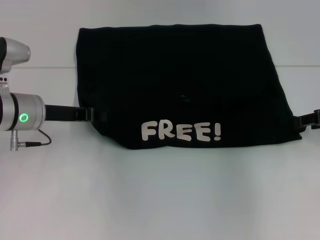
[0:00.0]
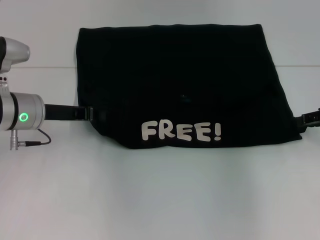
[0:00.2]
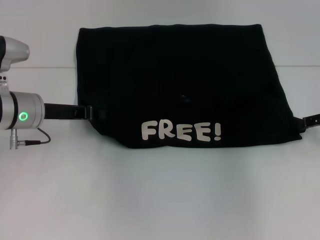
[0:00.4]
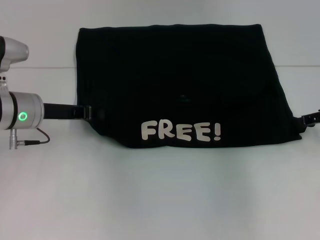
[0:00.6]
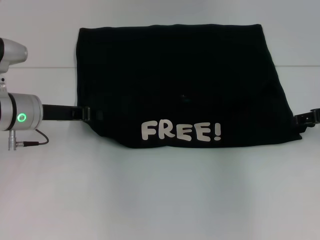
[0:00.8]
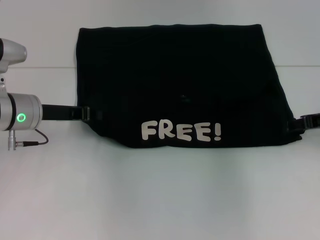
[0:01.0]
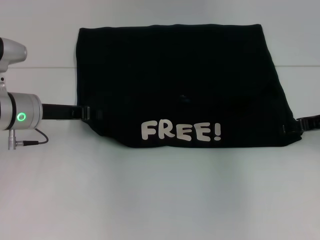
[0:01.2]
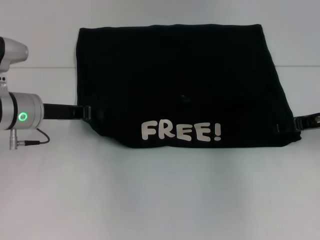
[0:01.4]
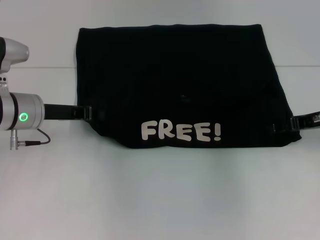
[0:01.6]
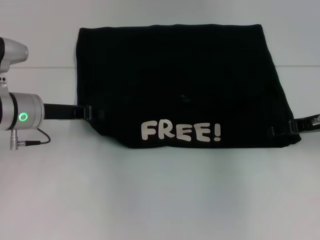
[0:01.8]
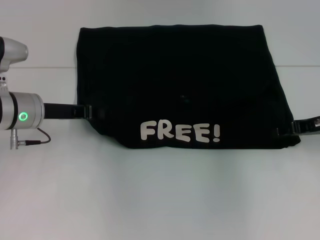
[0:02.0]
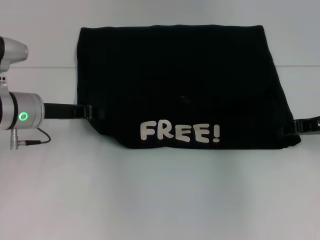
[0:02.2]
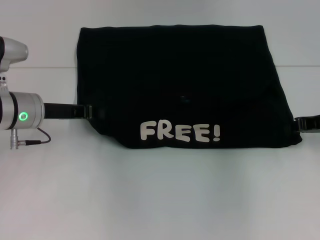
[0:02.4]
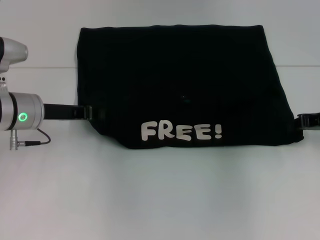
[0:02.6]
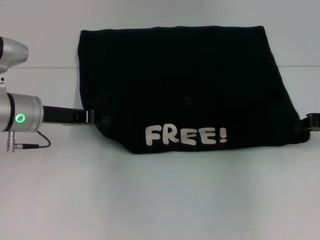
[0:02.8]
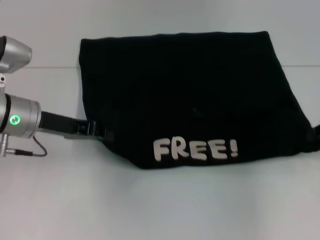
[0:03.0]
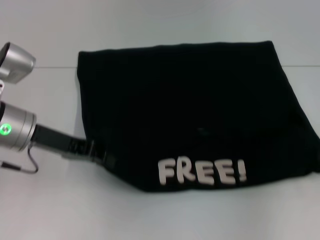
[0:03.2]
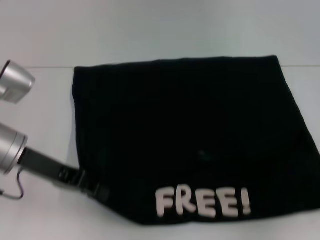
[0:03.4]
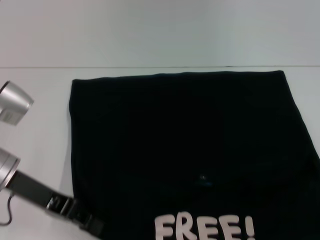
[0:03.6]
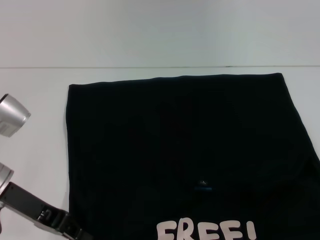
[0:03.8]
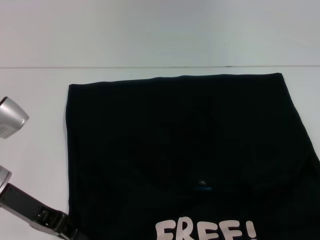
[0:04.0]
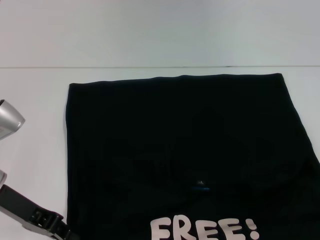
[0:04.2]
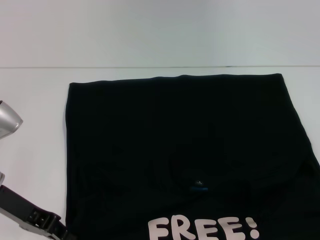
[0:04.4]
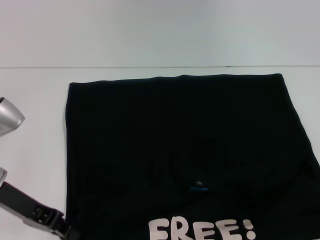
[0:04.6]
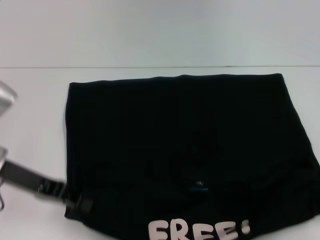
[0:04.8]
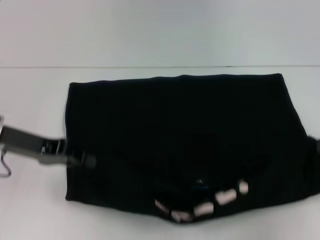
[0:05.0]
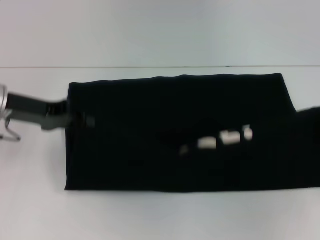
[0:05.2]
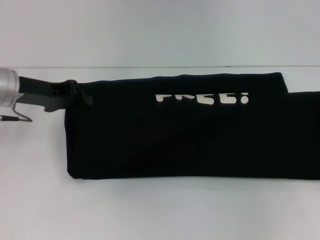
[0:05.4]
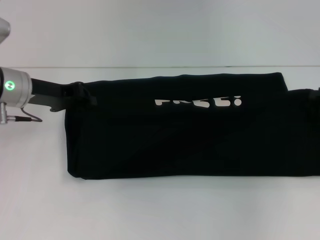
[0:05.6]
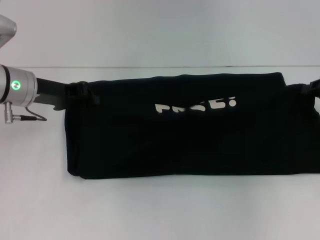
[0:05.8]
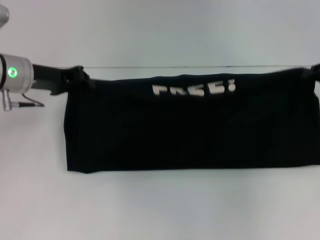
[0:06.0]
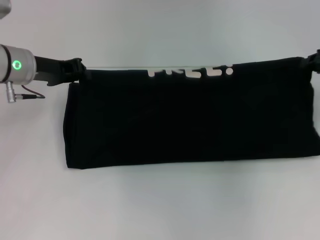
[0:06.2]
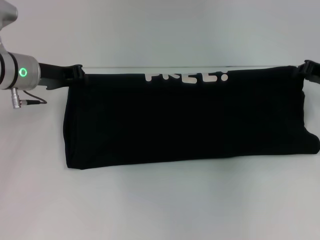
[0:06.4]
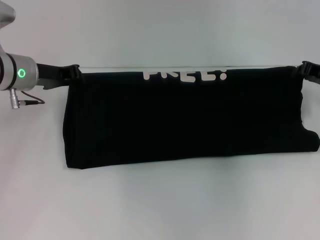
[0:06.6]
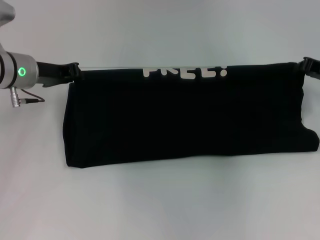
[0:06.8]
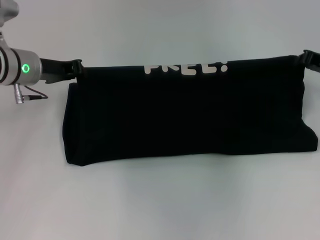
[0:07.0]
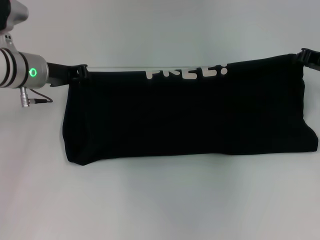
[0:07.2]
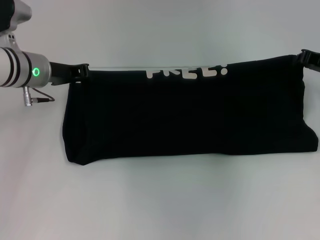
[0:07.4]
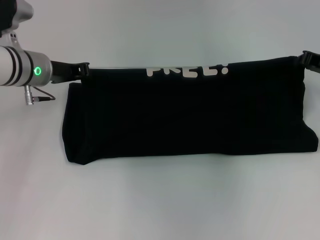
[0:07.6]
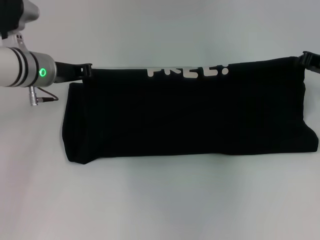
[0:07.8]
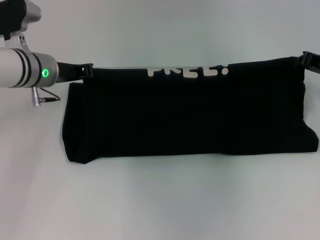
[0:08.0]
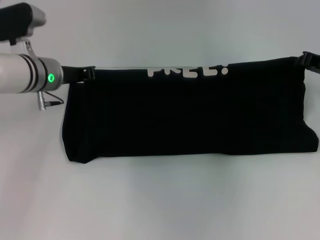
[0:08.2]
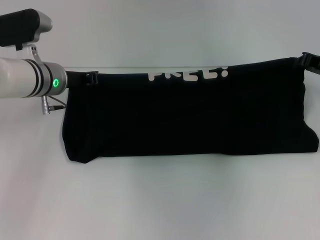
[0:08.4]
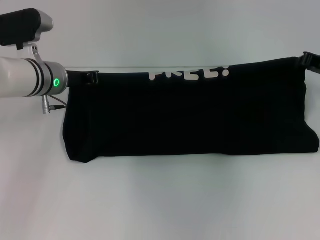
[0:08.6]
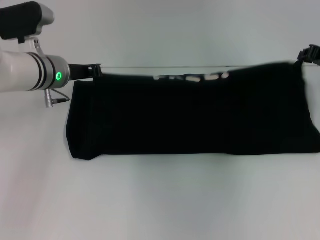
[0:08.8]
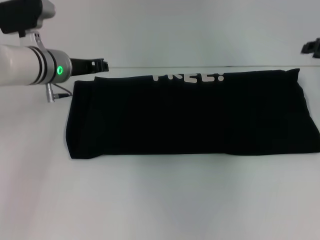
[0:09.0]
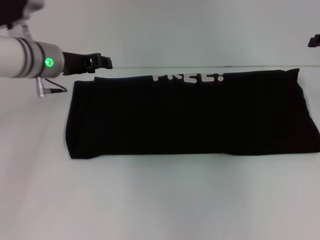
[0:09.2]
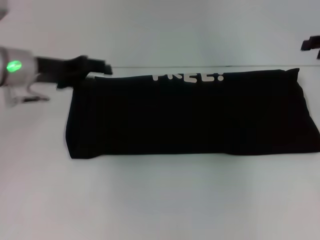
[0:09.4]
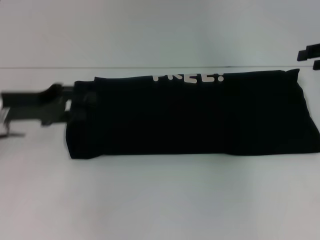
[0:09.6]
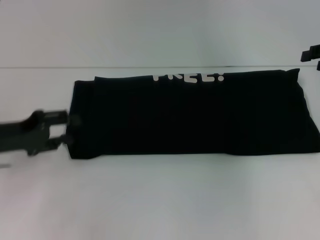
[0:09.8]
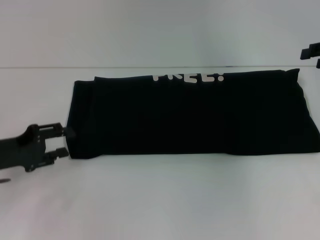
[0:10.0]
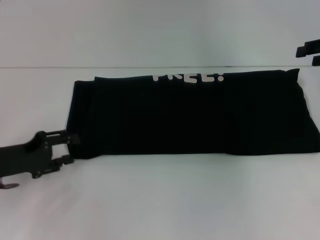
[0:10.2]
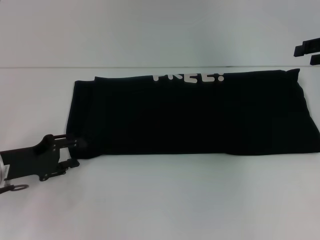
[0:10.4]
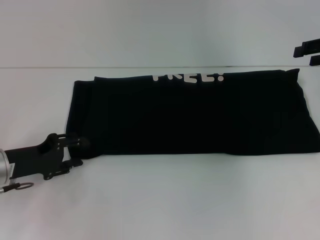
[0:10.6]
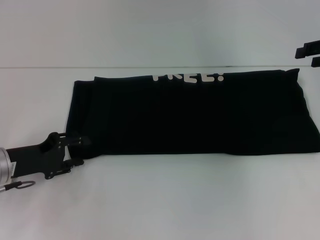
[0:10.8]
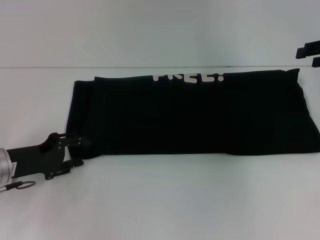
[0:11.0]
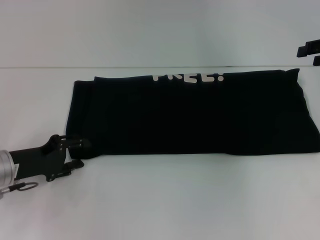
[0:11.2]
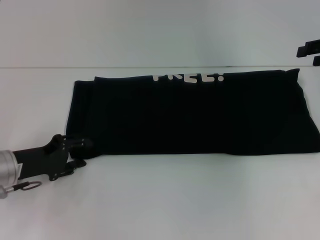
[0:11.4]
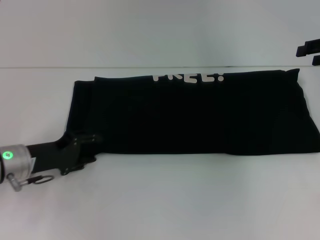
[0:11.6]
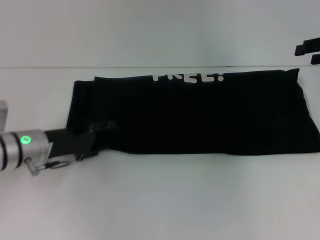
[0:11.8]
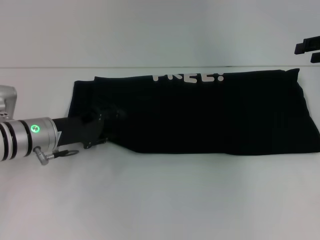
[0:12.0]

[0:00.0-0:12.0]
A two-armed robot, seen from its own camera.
Step, 0:00.0 to 0:03.8: Pull the clothes with your left hand.
Step, 0:00.0 to 0:03.8: Pull the clothes with your right hand.
Step, 0:04.0 to 0:09.4: Fold the clothes with your right hand.
0:00.0 to 0:01.6: The grippers make only small movements.
0:01.6 to 0:03.0: The right gripper is displaced to the right by some 5 cm, and closes.
0:03.0 to 0:04.4: The grippers both shift backward by about 10 cm.
0:04.4 to 0:06.0: The grippers both shift forward by roughly 15 cm.
0:06.0 to 0:07.6: The right gripper moves about 5 cm.
0:07.6 to 0:09.0: The grippers move only a little.
0:09.0 to 0:10.4: The left gripper is displaced backward, to the left and downward by roughly 20 cm, and opens up.
0:10.4 to 0:12.0: The left gripper travels to the right and forward by approximately 10 cm.

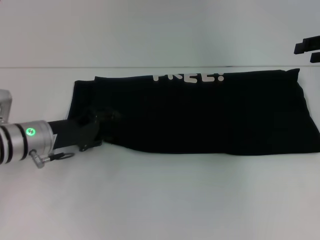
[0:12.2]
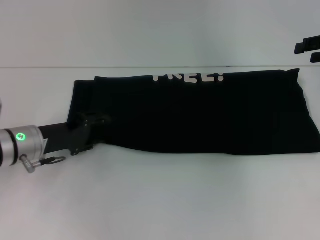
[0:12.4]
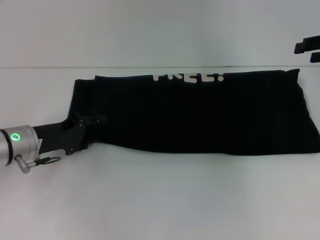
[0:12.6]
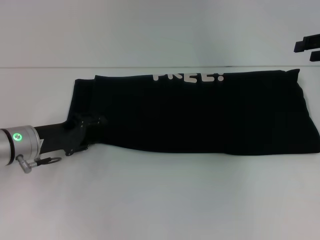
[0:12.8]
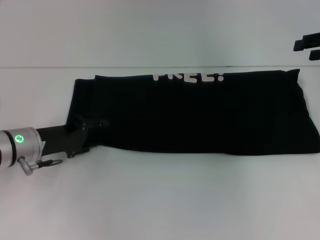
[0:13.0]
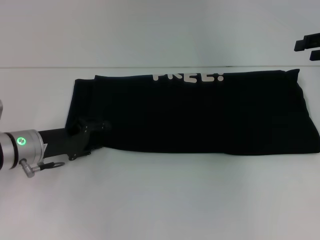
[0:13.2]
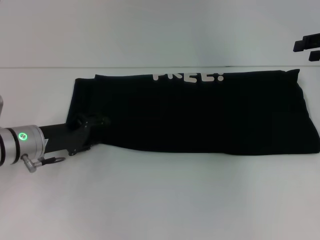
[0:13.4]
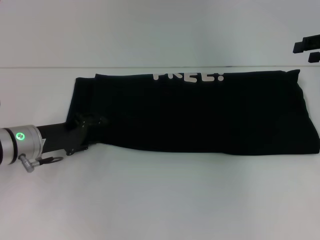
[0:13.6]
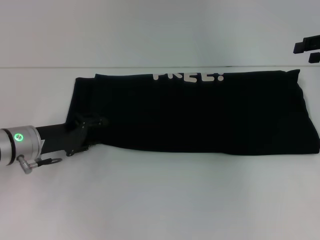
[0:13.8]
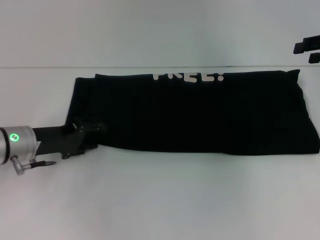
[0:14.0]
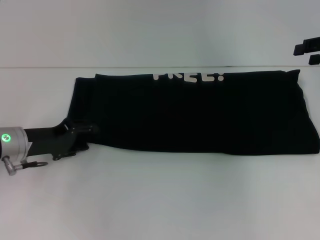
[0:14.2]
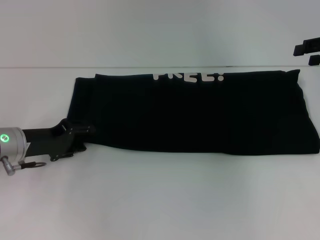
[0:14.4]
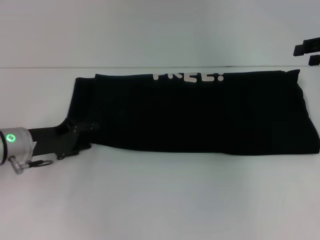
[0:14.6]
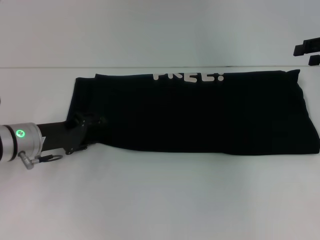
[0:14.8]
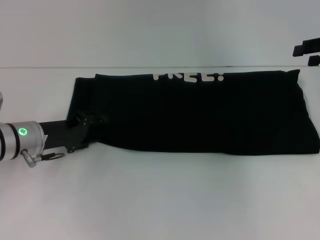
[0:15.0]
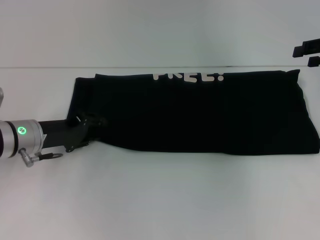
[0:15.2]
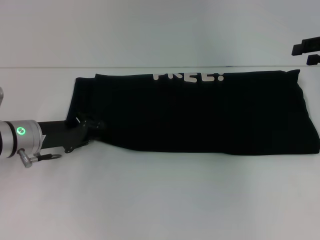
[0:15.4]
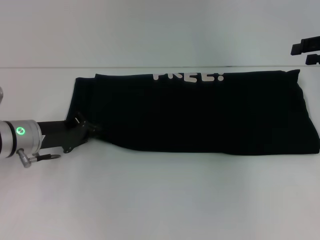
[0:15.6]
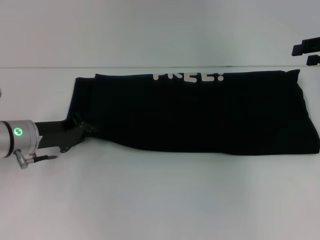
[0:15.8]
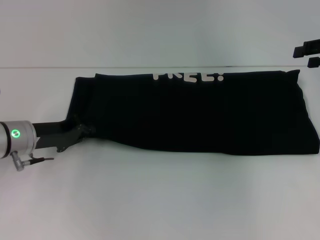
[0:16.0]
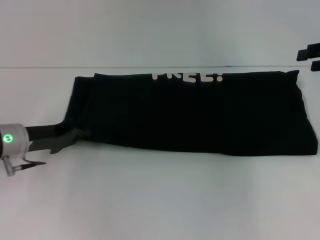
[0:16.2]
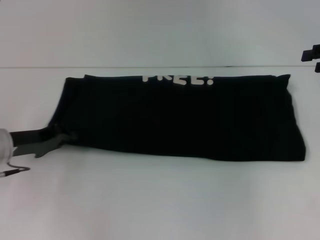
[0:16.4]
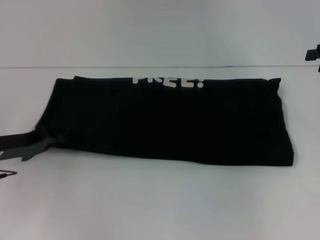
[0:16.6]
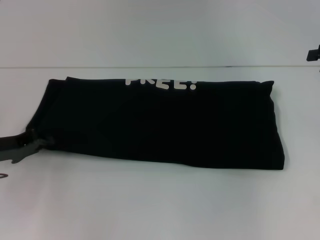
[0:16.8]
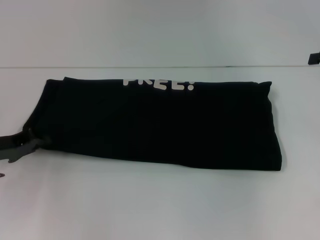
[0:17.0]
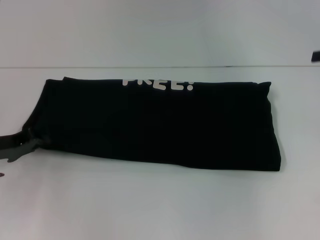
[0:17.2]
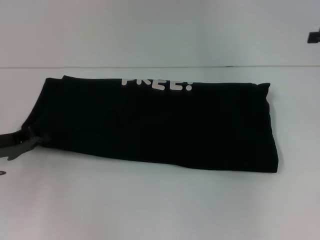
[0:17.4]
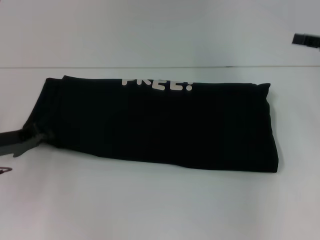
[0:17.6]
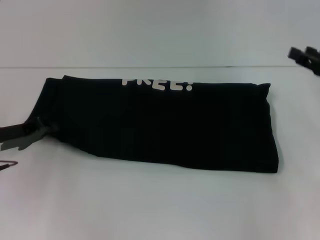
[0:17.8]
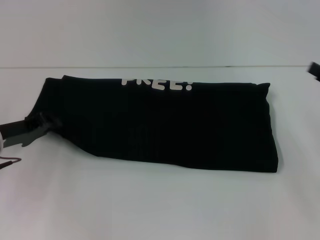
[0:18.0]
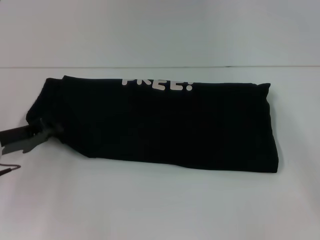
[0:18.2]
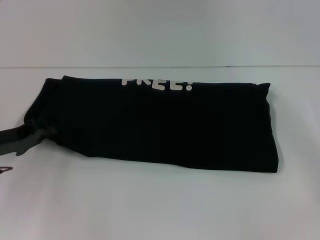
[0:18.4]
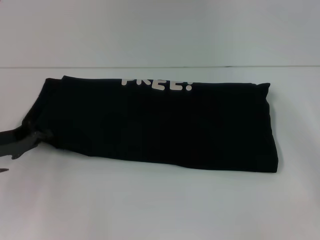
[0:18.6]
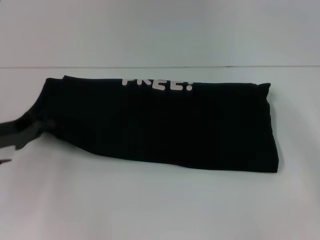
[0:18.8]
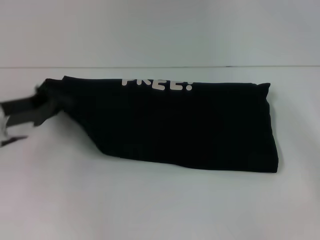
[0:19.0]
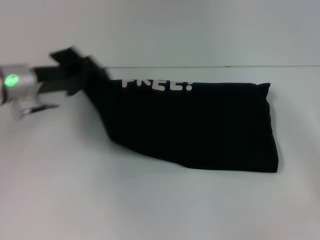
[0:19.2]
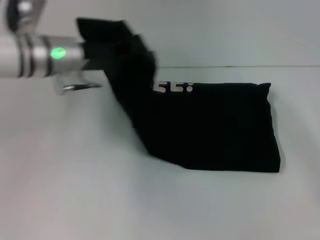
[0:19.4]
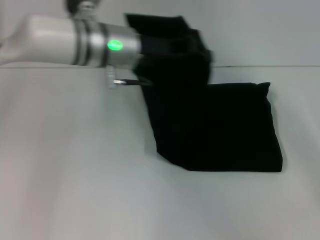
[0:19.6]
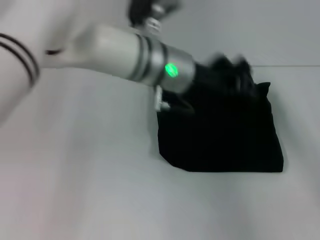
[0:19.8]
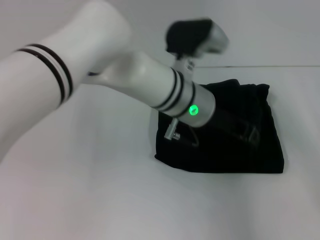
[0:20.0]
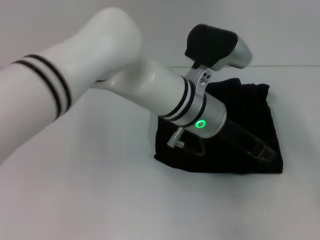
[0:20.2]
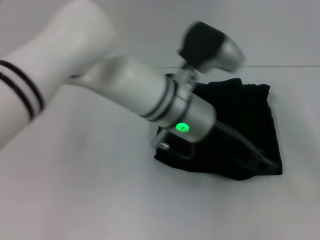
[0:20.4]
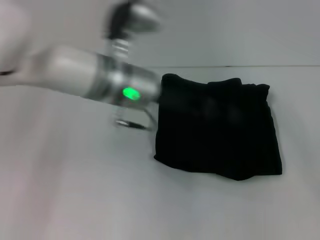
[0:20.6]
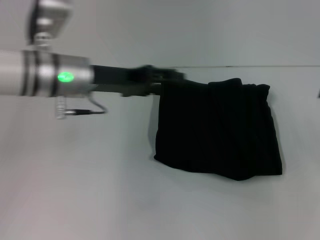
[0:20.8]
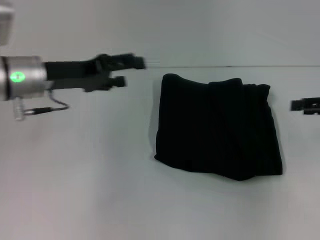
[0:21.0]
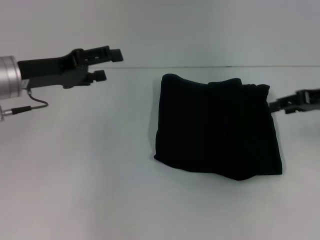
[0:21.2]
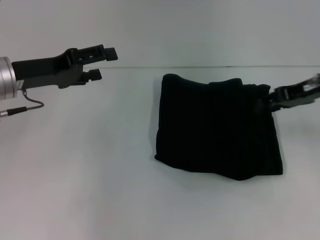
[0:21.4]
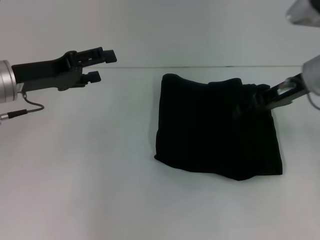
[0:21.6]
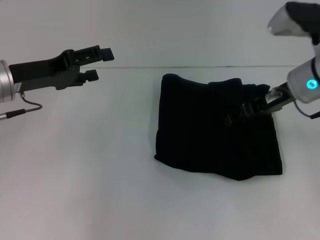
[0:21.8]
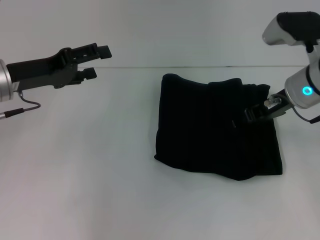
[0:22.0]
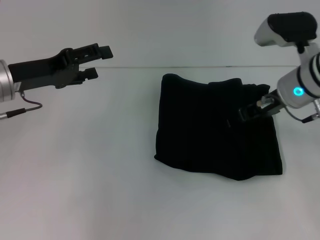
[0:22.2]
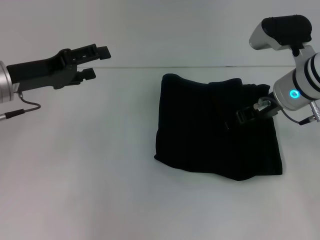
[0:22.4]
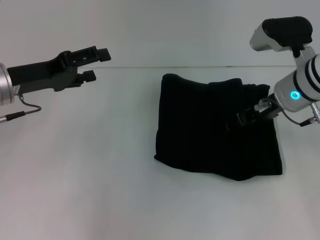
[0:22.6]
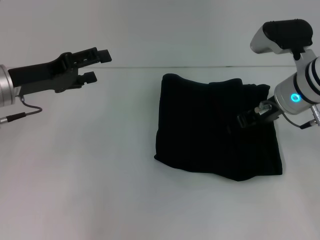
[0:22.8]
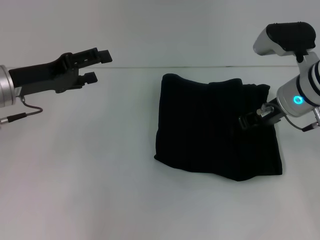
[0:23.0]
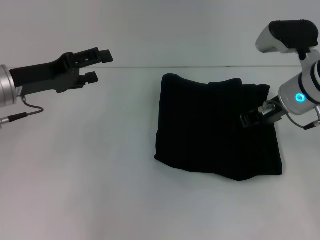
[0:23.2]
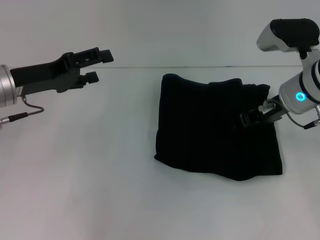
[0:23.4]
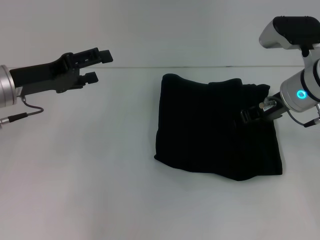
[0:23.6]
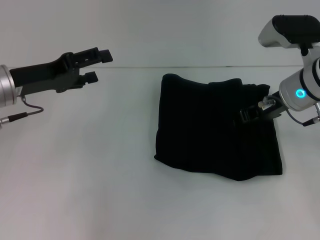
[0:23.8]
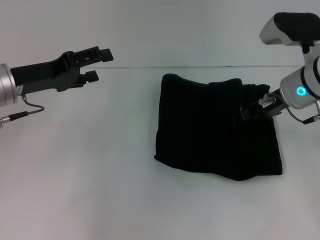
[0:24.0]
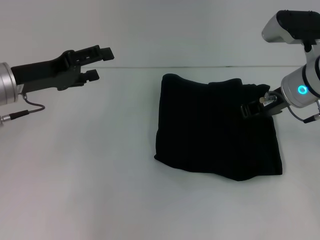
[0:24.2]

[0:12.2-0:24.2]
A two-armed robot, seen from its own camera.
Step, 0:12.2 to 0:20.4: Fold the clothes with your left hand.
0:12.2 to 0:15.2: There are only small adjustments of the grippers.
0:15.2 to 0:16.6: The left gripper heads to the left, covering some 5 cm, and closes.
0:16.6 to 0:18.2: The right gripper goes approximately 15 cm backward and downward.
0:18.2 to 0:19.8: The left gripper moves to the right and upward, some 30 cm.
0:19.8 to 0:21.2: The right gripper travels forward and to the left by approximately 15 cm, while the left gripper shifts approximately 20 cm to the left, and opens its fingers.
0:21.2 to 0:22.6: The right gripper goes approximately 10 cm to the left.
0:22.6 to 0:24.2: The grippers make only small movements.
